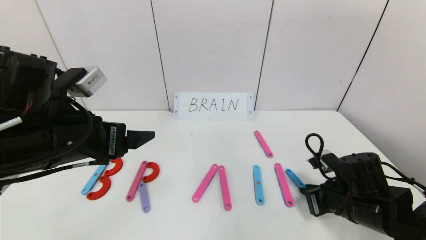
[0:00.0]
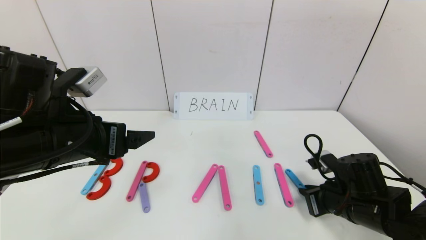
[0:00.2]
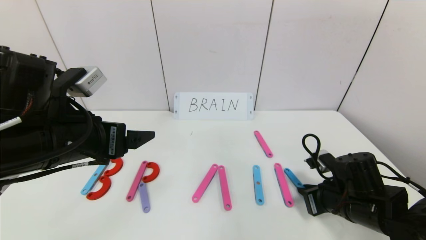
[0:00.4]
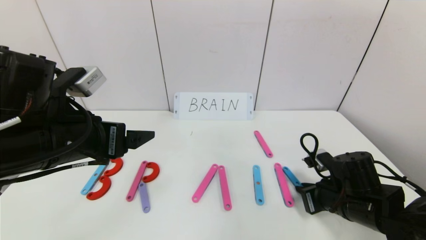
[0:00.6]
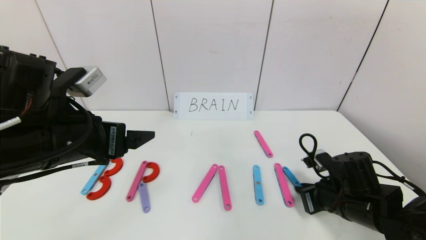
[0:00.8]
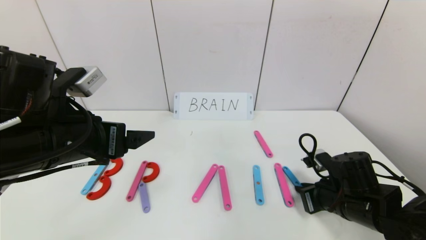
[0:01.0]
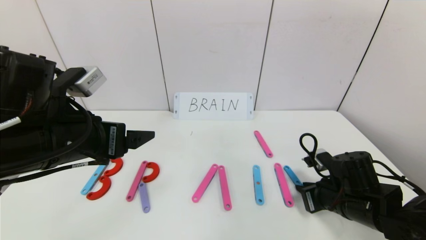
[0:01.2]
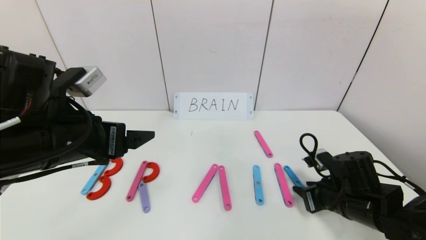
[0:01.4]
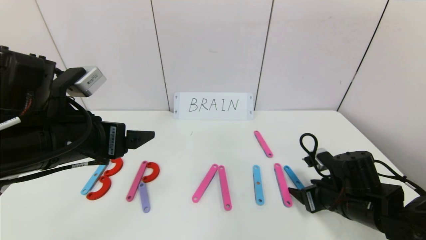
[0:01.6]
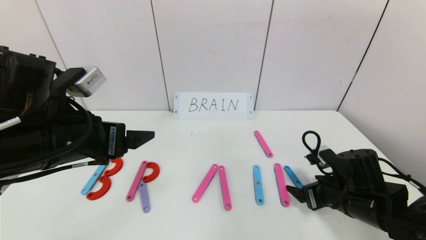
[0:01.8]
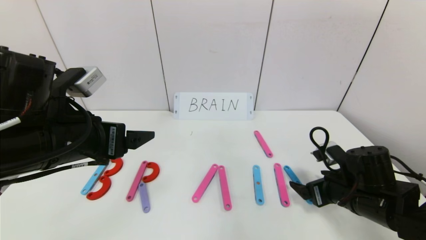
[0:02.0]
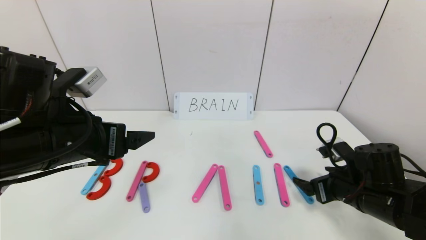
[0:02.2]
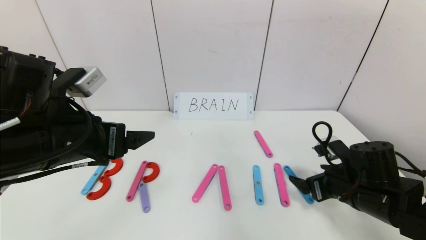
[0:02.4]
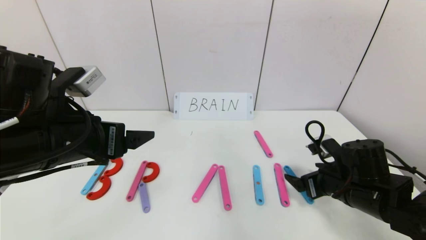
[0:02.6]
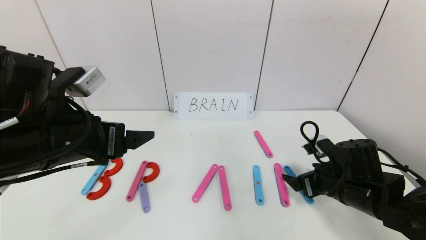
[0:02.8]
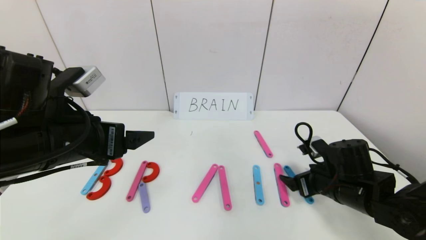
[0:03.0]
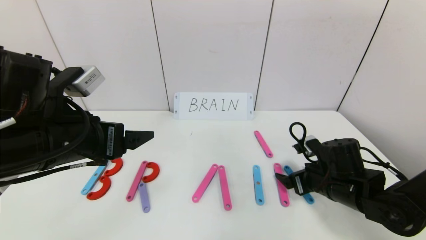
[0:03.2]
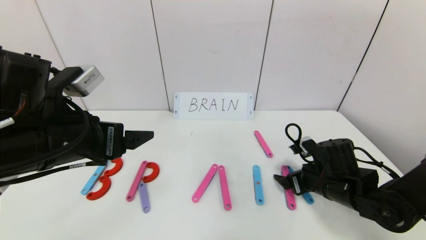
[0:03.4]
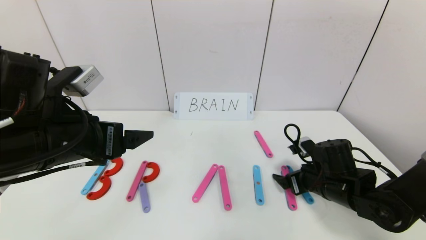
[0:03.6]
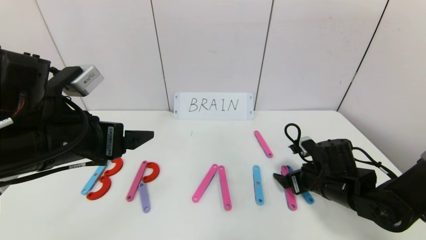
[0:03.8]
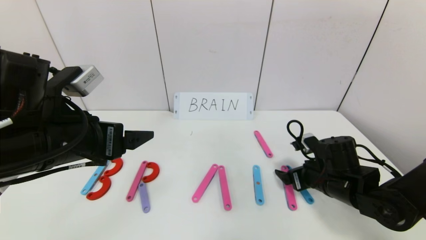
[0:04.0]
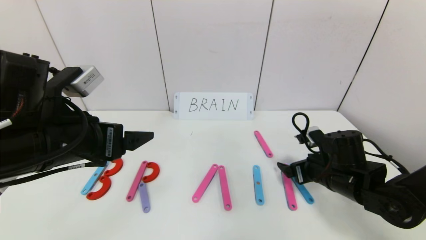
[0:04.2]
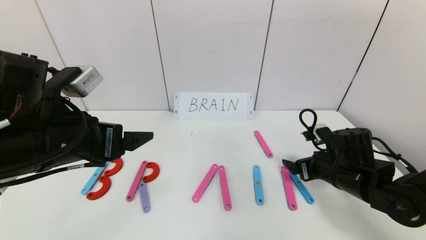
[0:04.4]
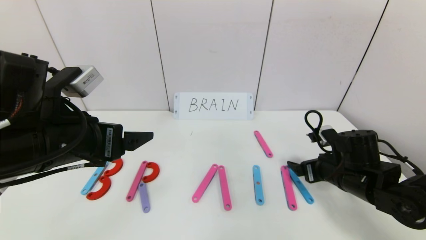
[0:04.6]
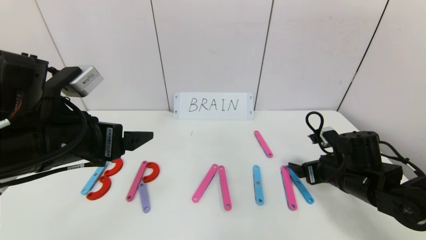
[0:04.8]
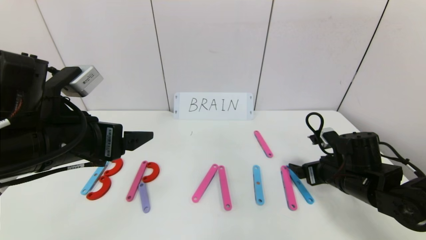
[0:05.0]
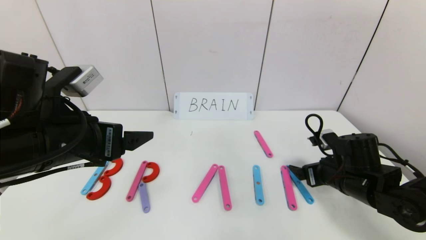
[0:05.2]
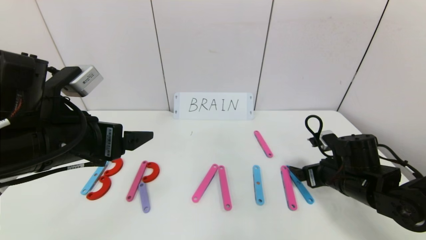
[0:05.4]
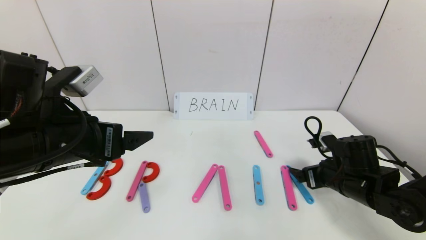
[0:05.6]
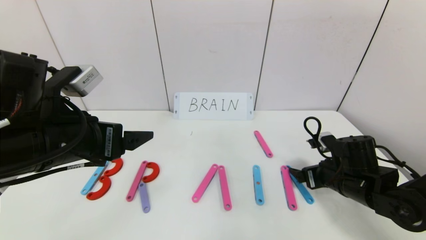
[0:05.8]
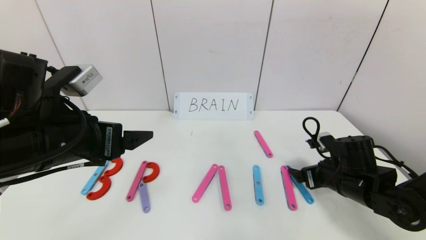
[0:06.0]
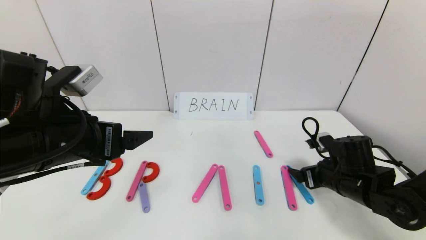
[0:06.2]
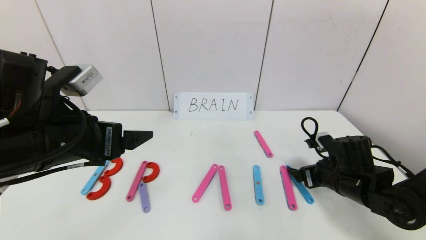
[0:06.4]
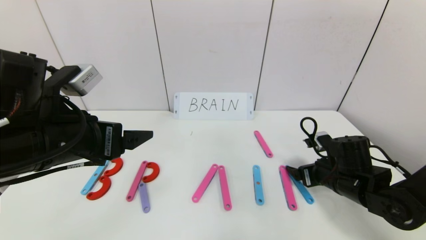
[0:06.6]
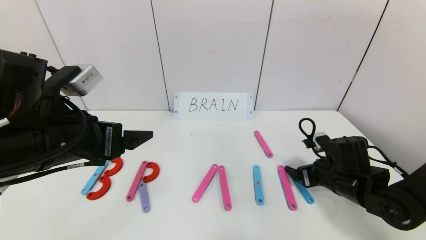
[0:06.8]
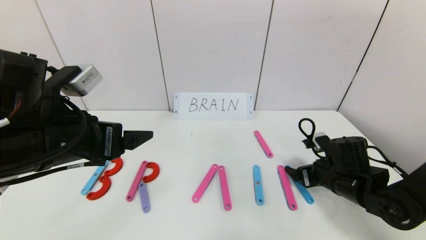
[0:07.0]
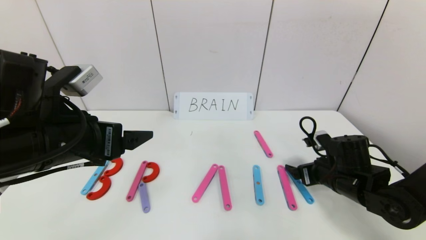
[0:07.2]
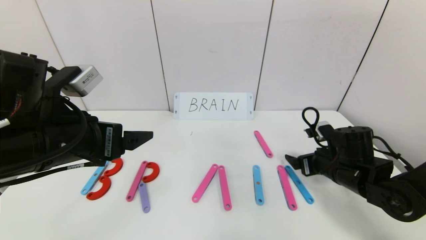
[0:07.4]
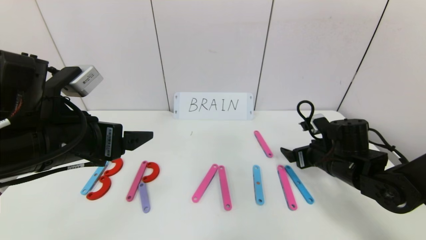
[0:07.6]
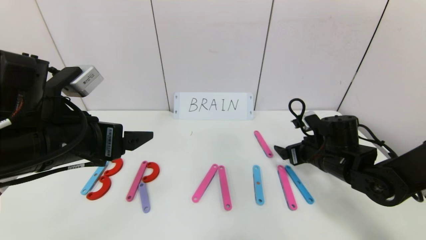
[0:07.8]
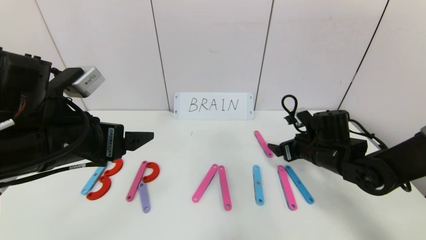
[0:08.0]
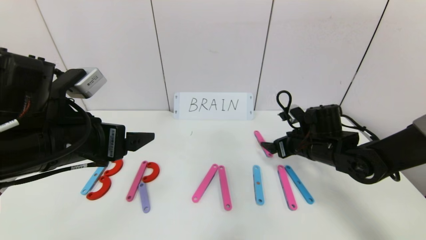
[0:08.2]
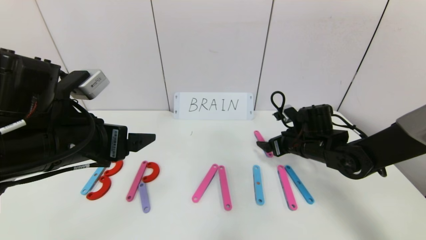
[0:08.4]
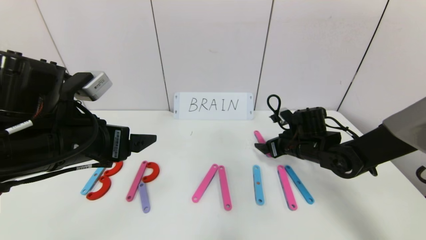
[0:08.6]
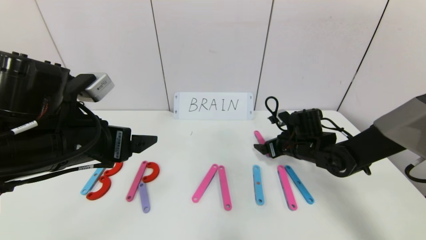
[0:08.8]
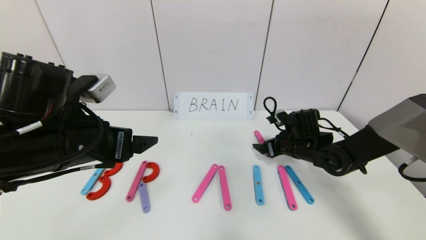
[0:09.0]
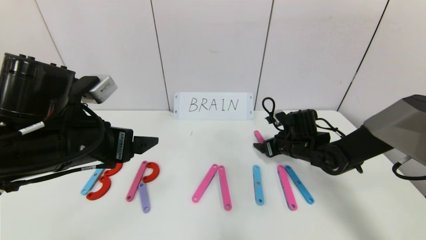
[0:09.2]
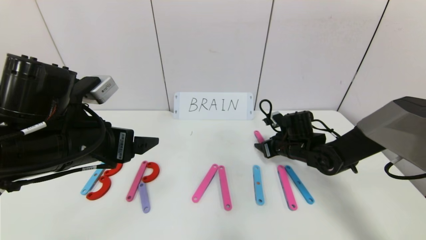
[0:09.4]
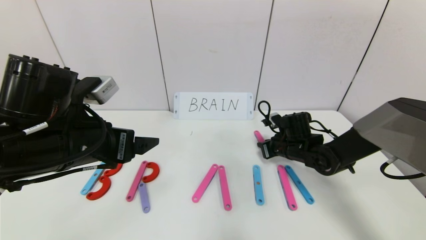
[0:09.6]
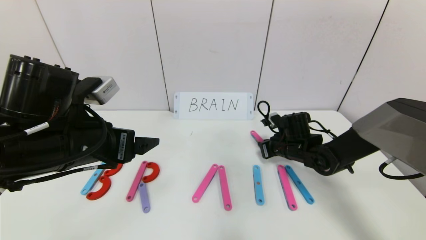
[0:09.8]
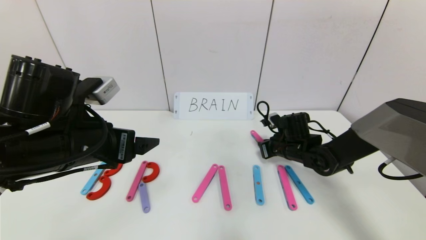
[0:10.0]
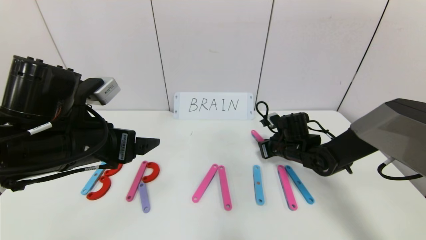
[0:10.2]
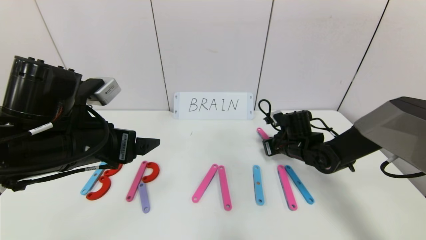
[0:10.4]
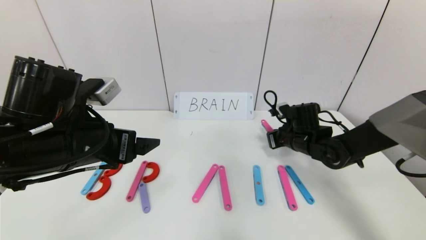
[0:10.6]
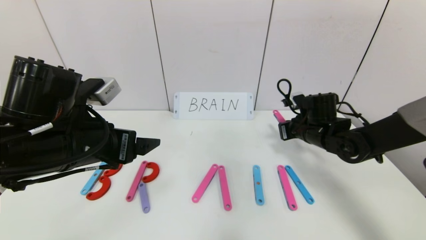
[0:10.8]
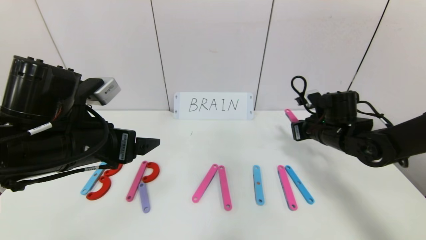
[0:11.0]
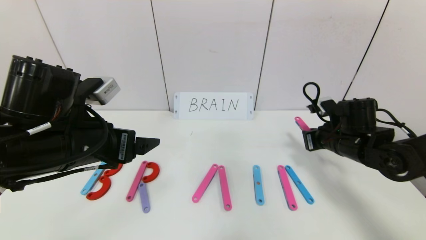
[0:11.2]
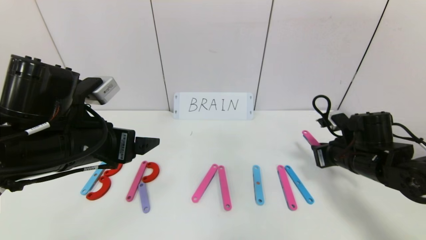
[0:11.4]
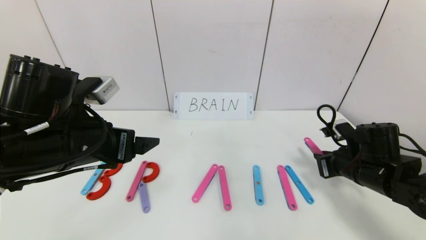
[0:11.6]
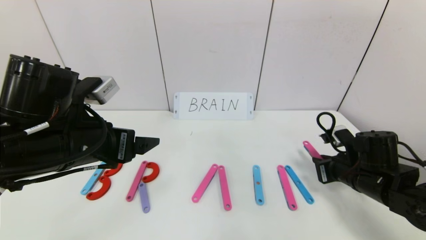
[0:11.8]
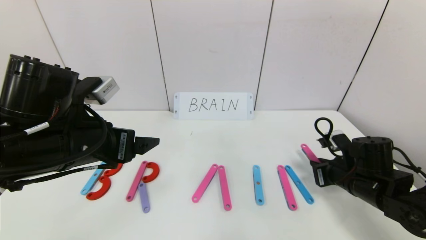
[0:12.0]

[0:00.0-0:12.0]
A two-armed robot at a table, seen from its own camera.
Task of the whole recording: rearrange the word baai as brain.
0:00.0 to 0:01.6: The right gripper opens its fingers.
0:01.6 to 0:06.0: The grippers move only a little.
0:06.0 to 0:07.6: The grippers stay close to where they were, moving slightly.
0:07.6 to 0:09.0: The right gripper is displaced forward by about 10 cm.
0:09.0 to 0:10.4: The right gripper closes.
0:10.4 to 0:12.0: The right gripper shifts about 15 cm backward and to the right.

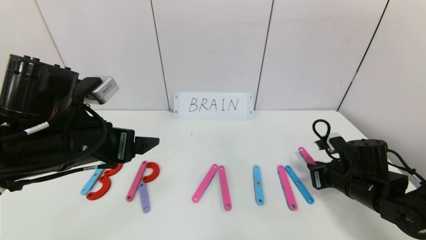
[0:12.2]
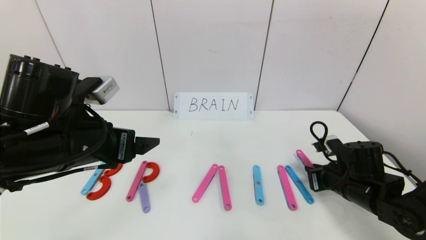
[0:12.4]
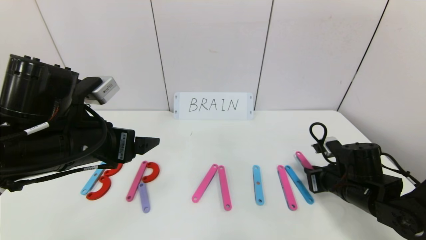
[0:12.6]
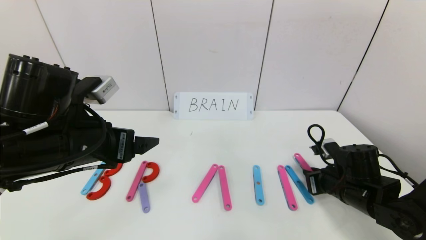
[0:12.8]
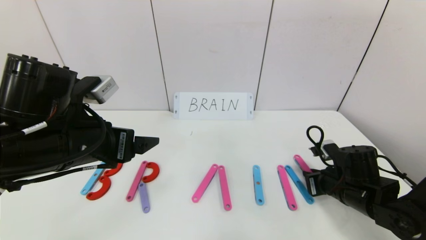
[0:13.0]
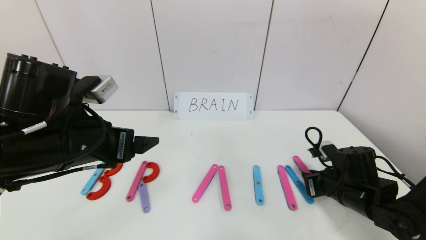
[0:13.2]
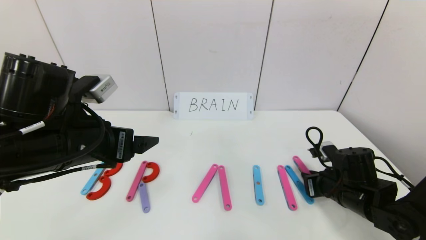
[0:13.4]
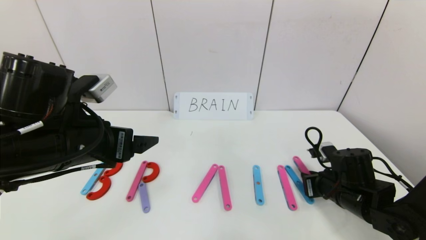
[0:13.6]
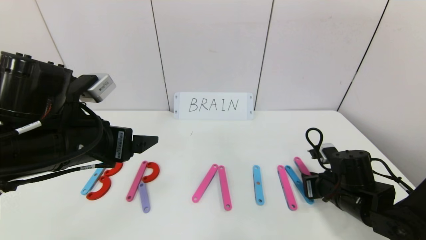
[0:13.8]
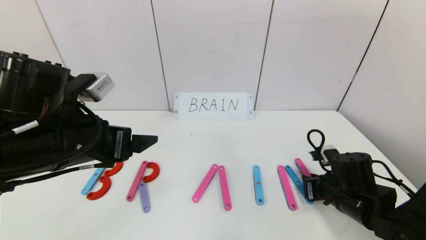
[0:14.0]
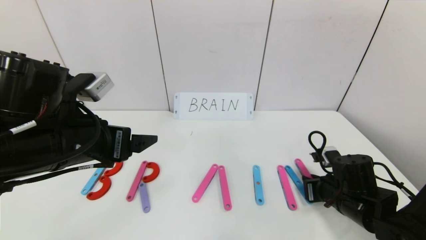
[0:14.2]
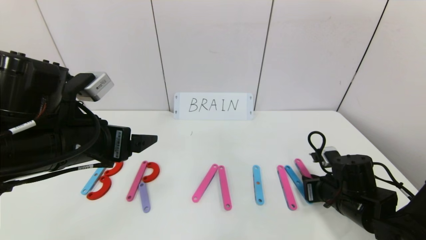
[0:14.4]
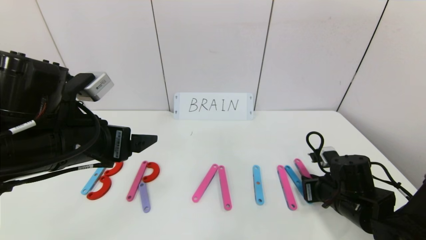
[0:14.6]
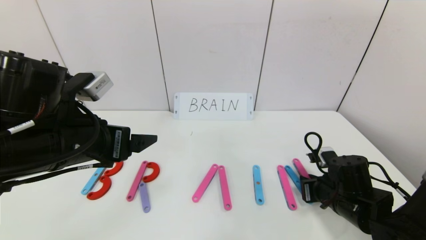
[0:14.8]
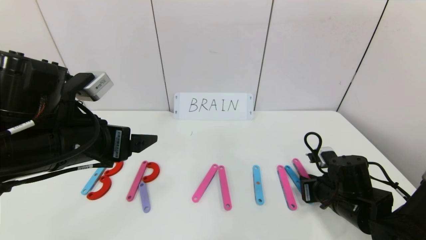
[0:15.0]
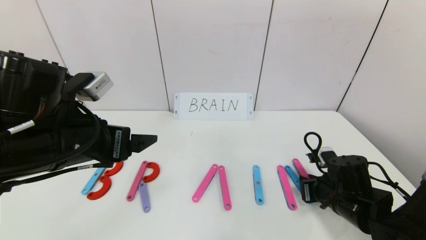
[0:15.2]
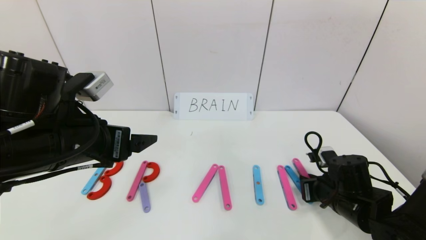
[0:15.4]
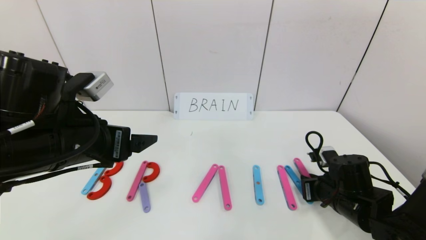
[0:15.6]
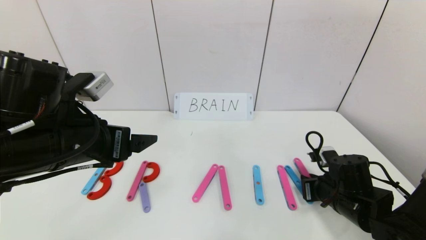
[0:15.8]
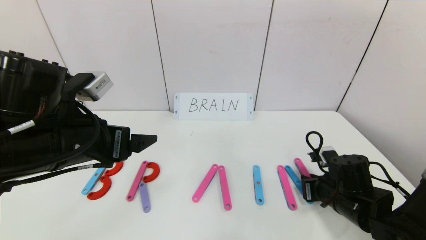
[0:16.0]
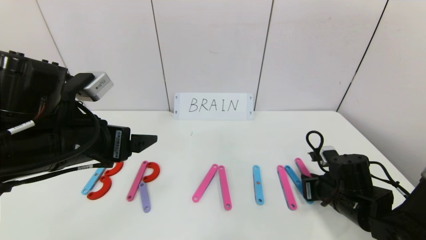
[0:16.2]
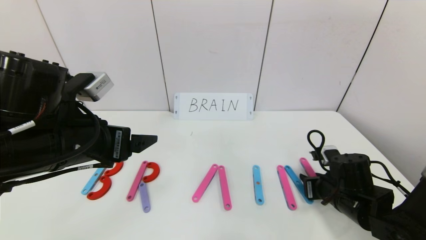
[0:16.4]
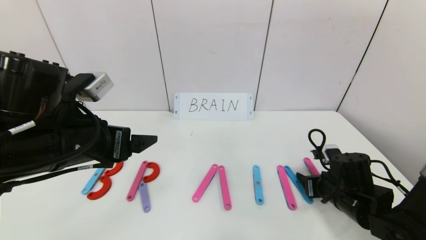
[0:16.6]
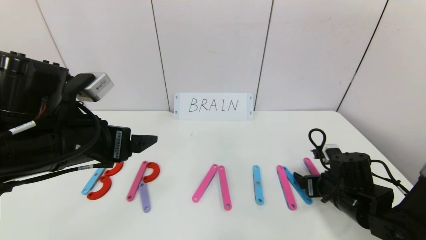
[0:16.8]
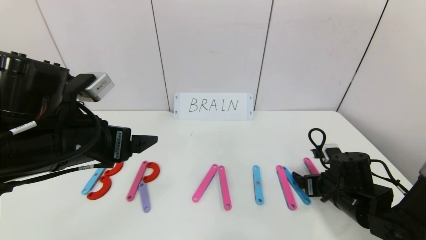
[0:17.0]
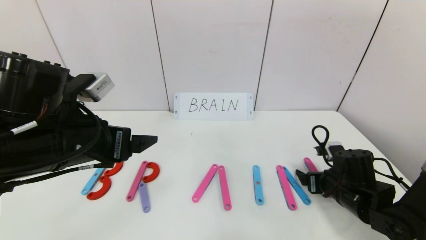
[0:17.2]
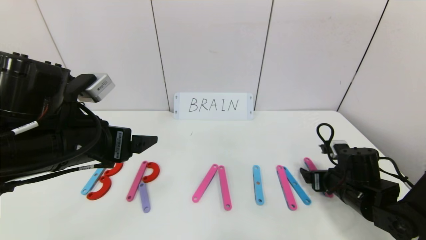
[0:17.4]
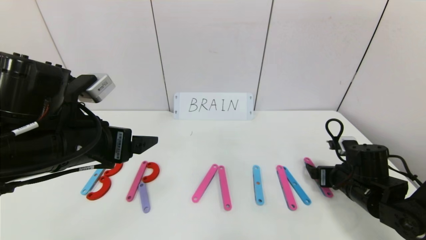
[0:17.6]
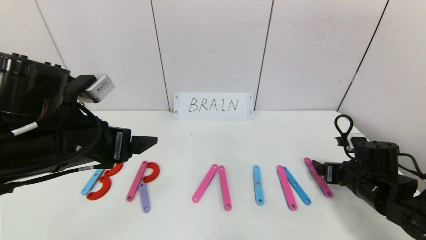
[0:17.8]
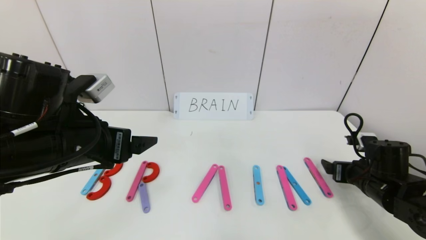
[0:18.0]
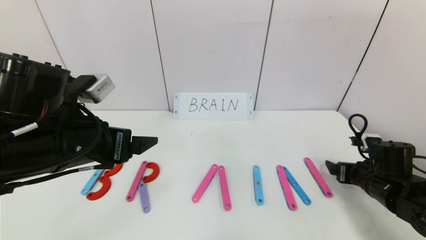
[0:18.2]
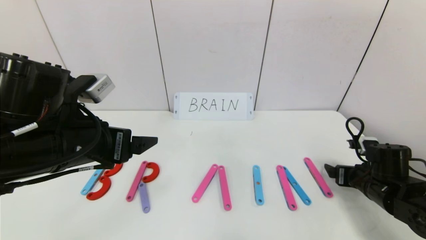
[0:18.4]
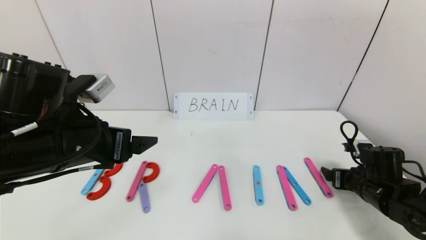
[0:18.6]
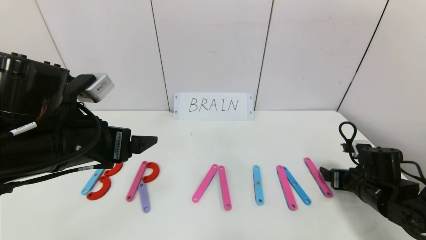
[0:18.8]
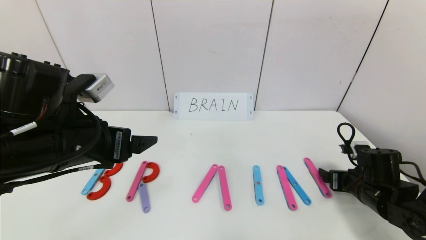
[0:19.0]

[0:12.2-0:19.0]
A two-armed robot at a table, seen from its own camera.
Task of the whole recording: rearrange the word baai as brain.
0:12.2 to 0:15.0: The grippers stay close to where they were, moving slightly.
0:15.0 to 0:16.2: Both grippers stay about where they are.
0:16.2 to 0:17.6: The right gripper opens.
0:17.6 to 0:19.0: There are only small adjustments of the grippers.
